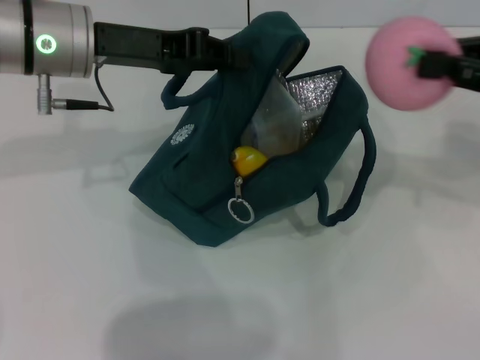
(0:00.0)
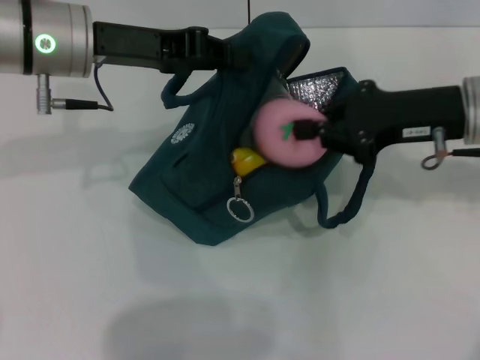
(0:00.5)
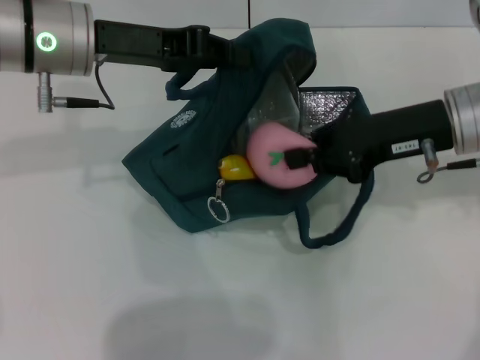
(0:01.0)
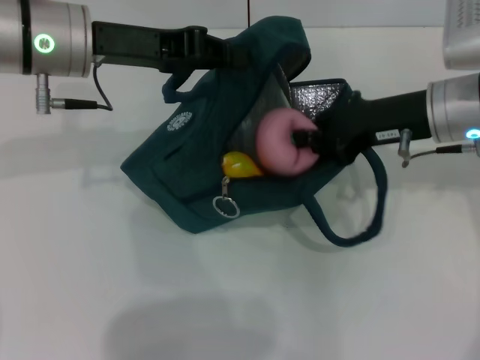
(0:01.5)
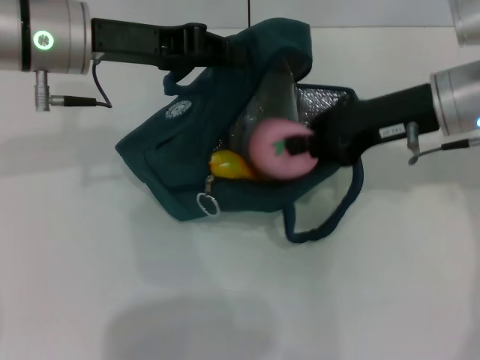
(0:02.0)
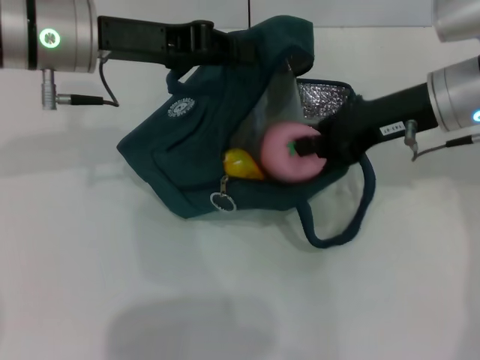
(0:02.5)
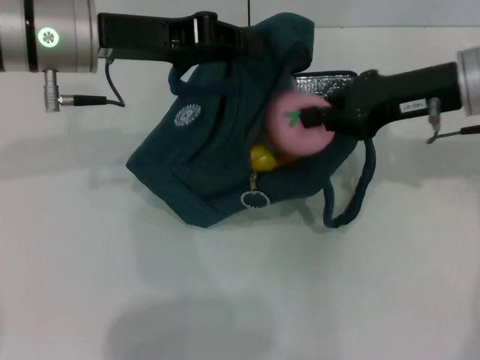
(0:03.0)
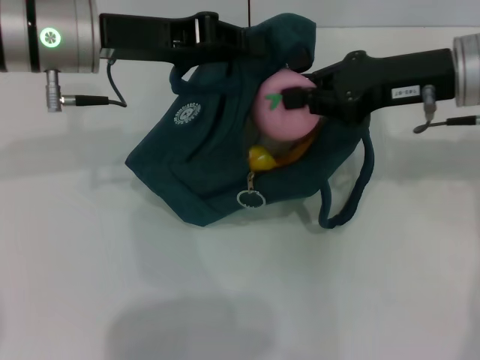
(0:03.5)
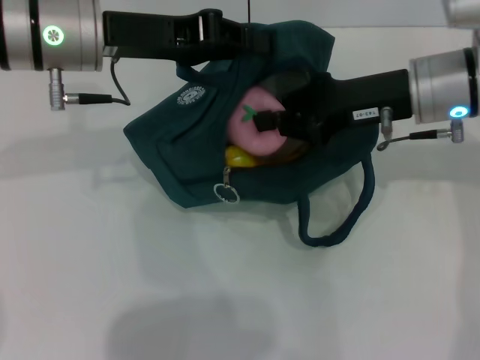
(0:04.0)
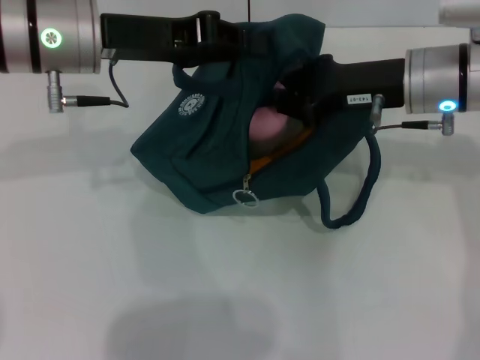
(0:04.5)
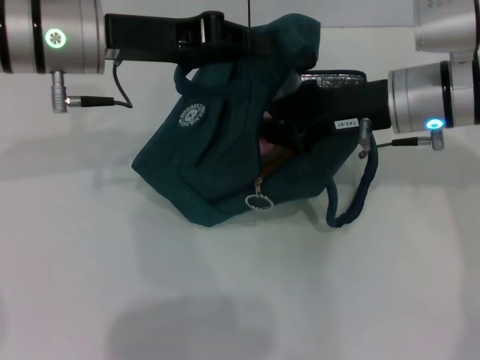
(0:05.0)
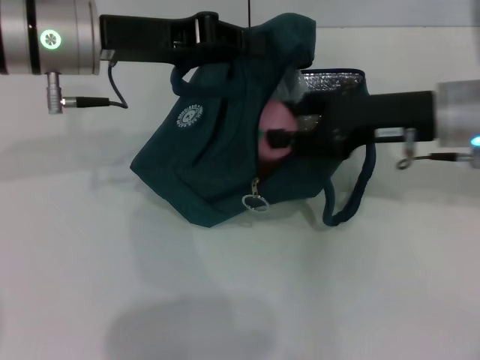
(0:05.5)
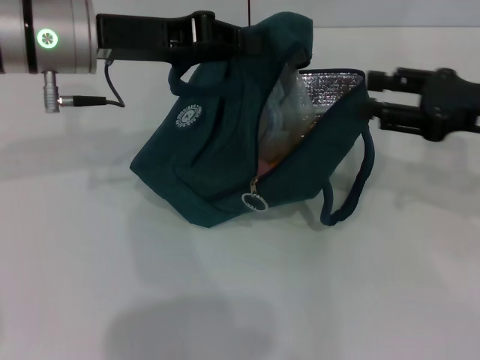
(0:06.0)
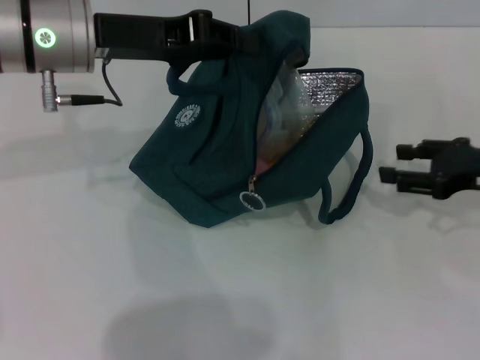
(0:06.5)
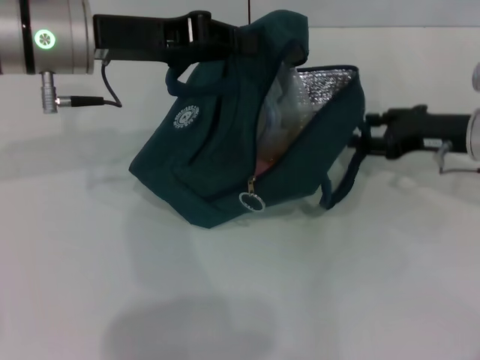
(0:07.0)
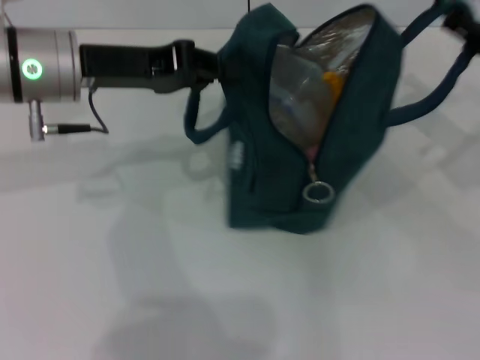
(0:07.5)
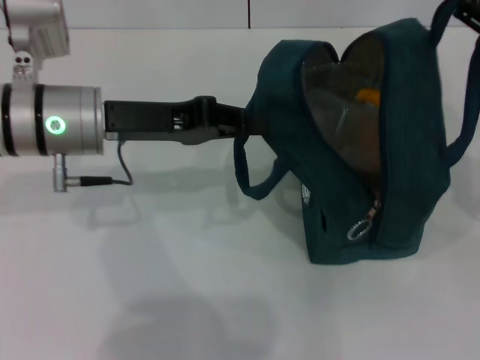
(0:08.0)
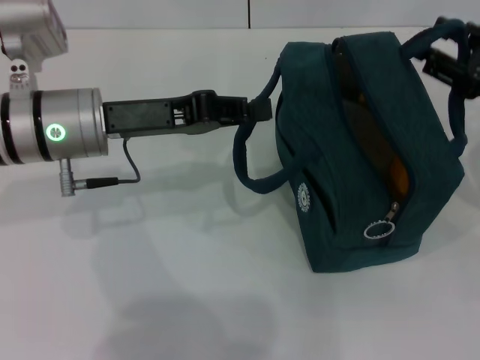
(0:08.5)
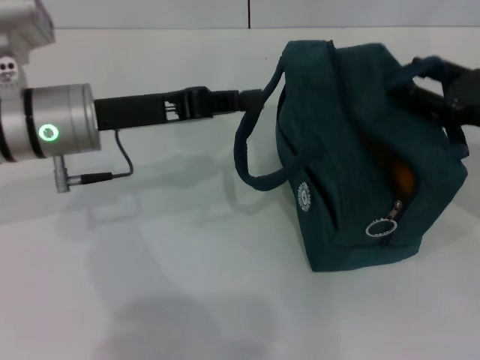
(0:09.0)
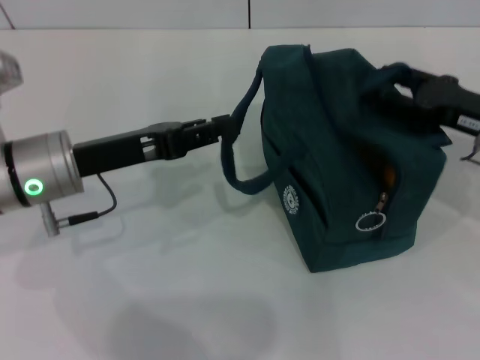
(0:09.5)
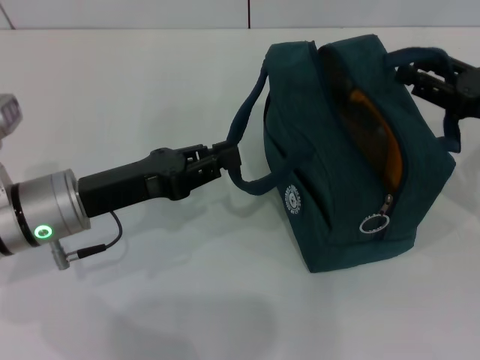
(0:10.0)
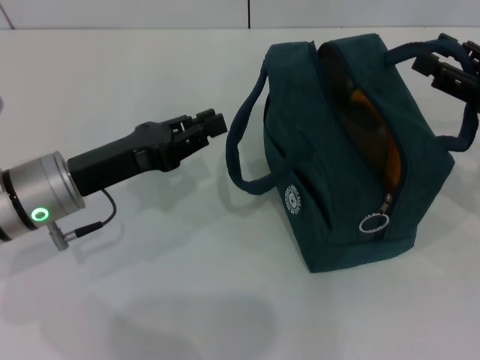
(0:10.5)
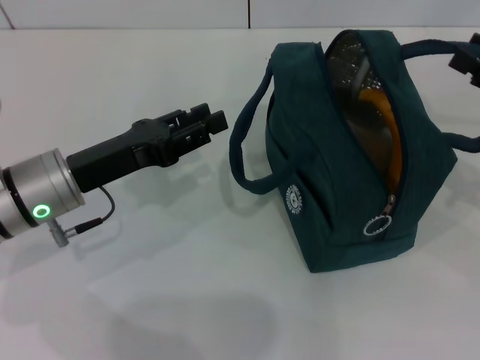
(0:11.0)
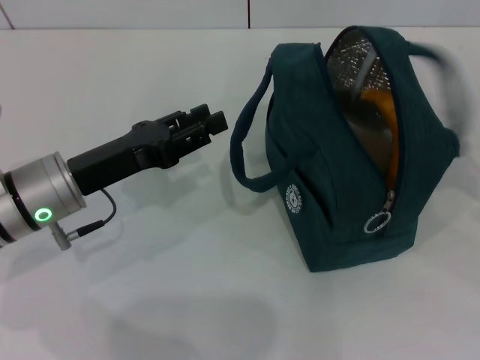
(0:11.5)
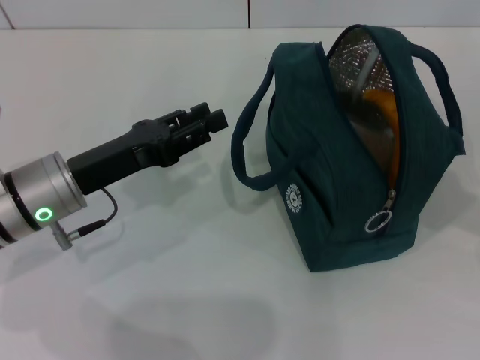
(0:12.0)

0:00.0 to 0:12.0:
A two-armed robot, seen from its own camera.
Step, 0:06.0 to 0:08.0: Hold the lunch bag with your left hand.
Step, 0:08.5 to 0:10.0: Hold the lunch bag with your right hand.
0:00.0 to 0:02.0: The right gripper shifts approximately 10 cm to the left.
0:04.0 to 0:06.0: The right gripper travels to the right by approximately 10 cm, and opens its fingers.
0:06.0 to 0:08.0: The left gripper heads downward, covering about 5 cm.
0:08.0 to 0:10.0: The left gripper heads downward and backward, covering approximately 10 cm, while the right gripper travels downward by some 5 cm.
0:10.0 to 0:12.0: The right gripper heads backward and to the right, covering about 10 cm.

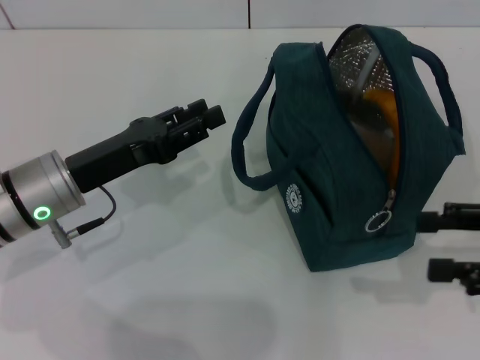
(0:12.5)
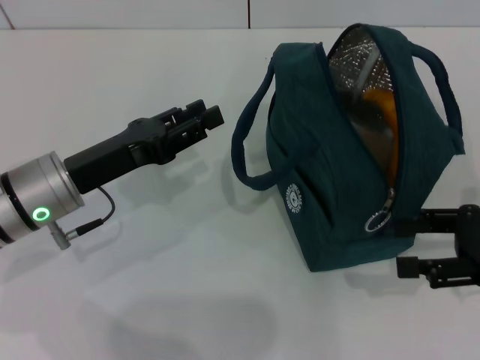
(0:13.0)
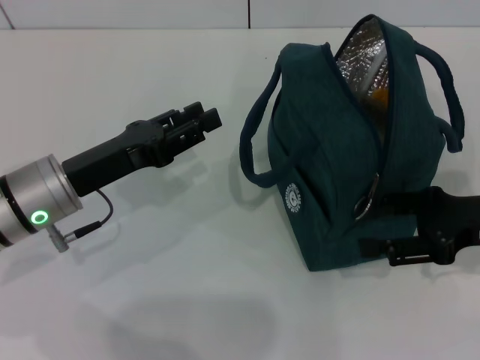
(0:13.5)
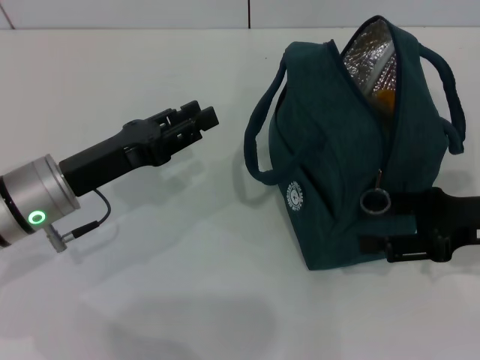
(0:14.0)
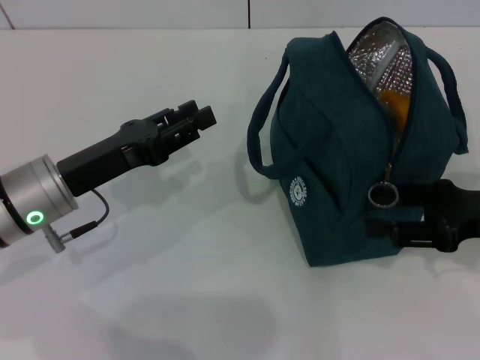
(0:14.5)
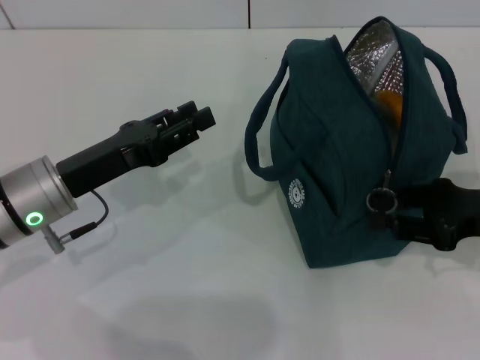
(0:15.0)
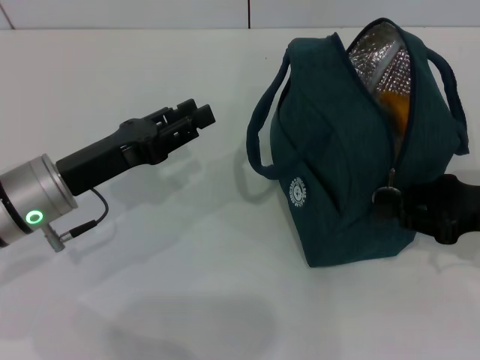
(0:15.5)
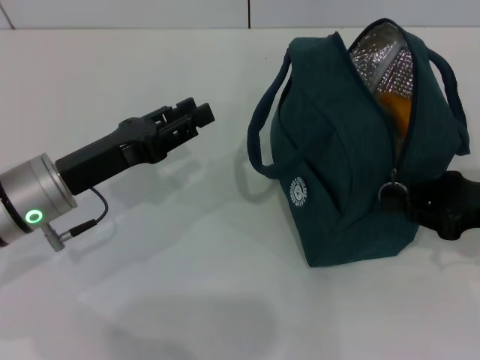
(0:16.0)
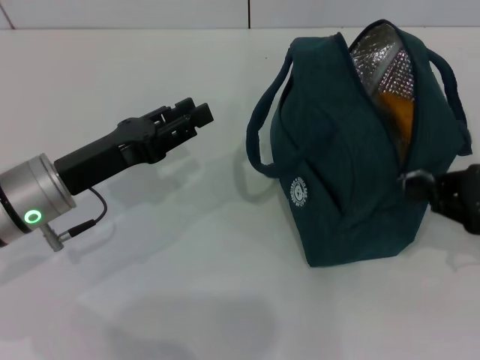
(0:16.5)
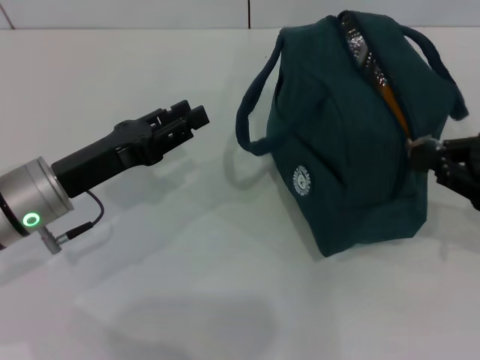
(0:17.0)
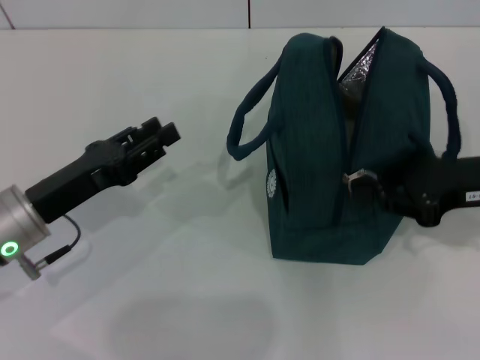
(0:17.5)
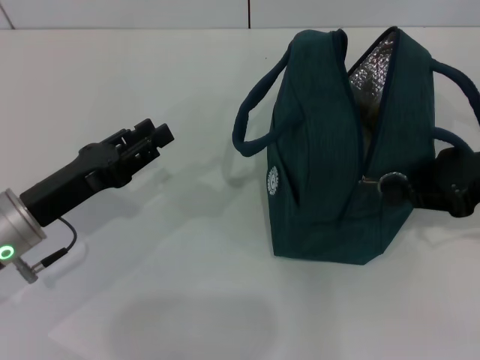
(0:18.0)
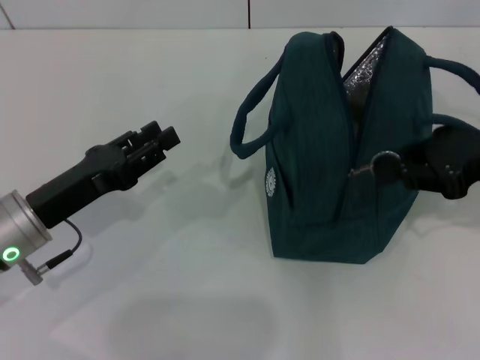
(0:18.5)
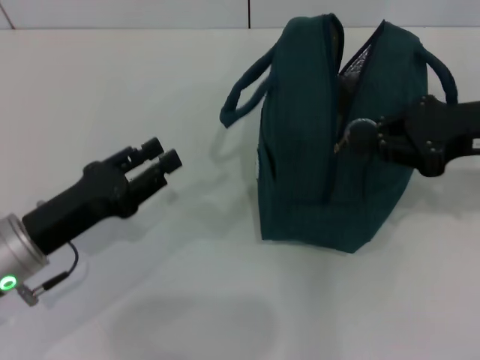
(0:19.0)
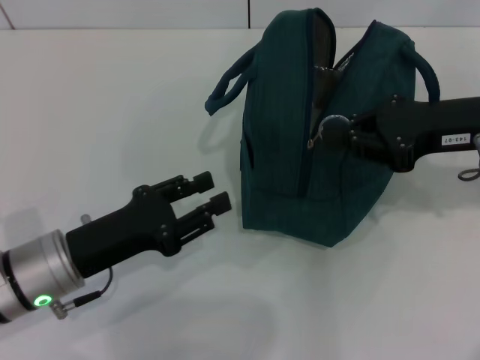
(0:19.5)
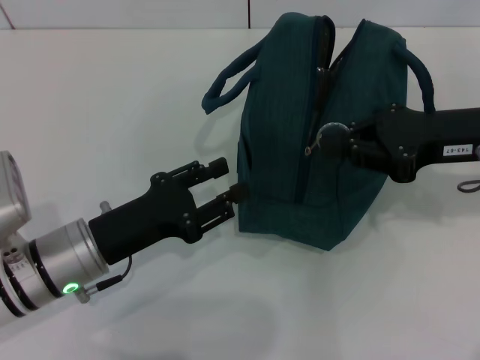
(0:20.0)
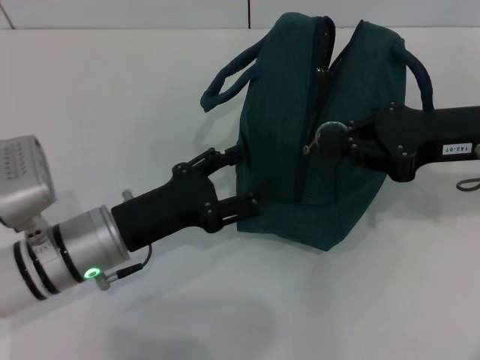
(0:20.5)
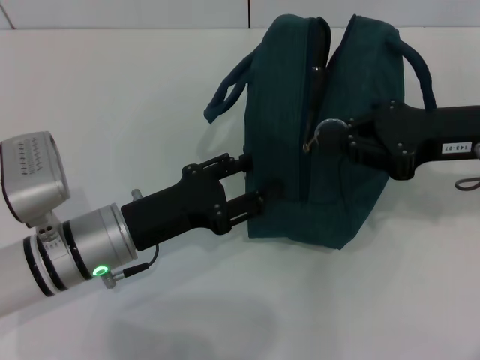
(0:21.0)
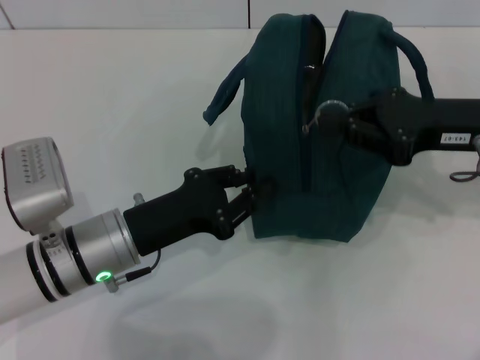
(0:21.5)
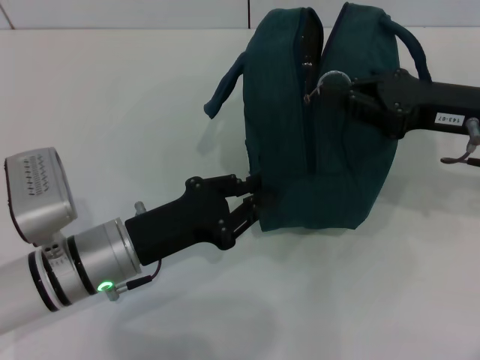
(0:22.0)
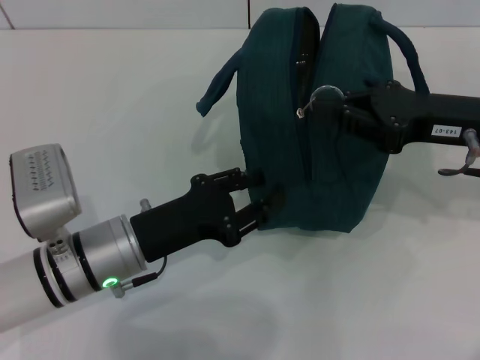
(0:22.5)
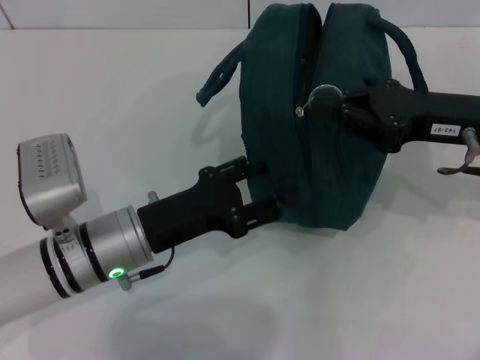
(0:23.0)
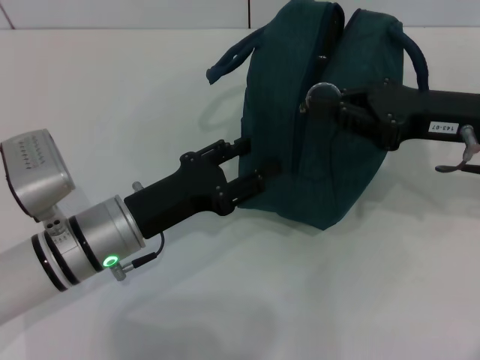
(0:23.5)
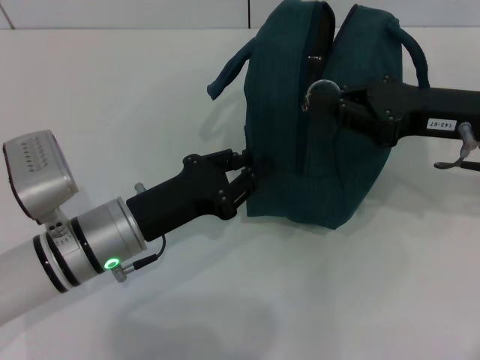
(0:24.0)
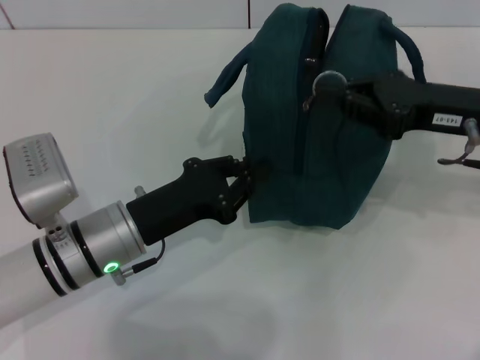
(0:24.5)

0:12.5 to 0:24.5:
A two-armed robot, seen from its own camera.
0:12.5 to 0:14.5: The right gripper changes place by about 5 cm.
0:14.5 to 0:16.5: The right gripper closes up.
0:16.5 to 0:18.5: The right gripper shifts approximately 5 cm upward.
0:18.5 to 0:20.5: The left gripper travels to the right by some 5 cm, and opens up.
0:20.5 to 0:22.5: The left gripper closes its fingers.
0:22.5 to 0:24.5: The left gripper opens and closes again.

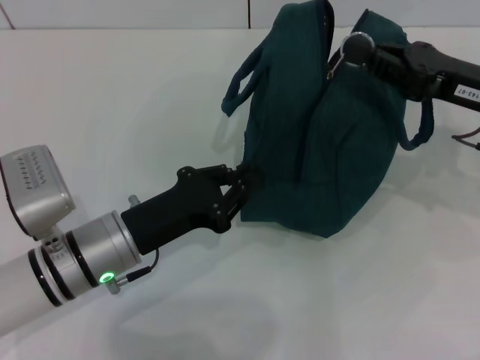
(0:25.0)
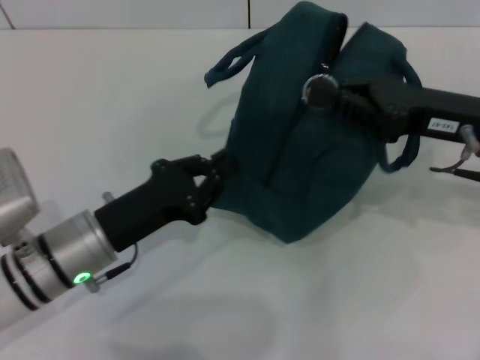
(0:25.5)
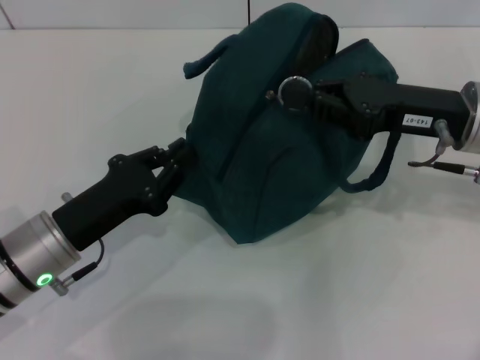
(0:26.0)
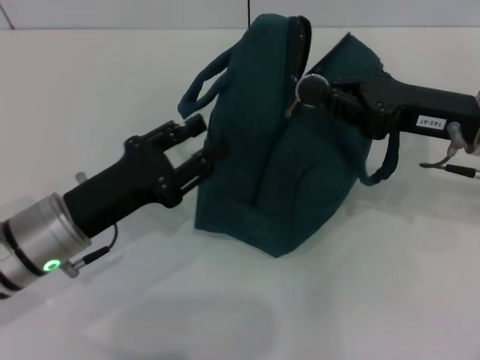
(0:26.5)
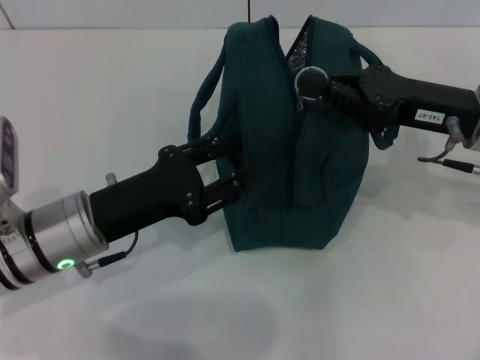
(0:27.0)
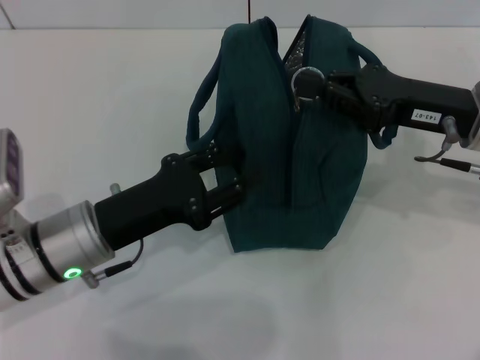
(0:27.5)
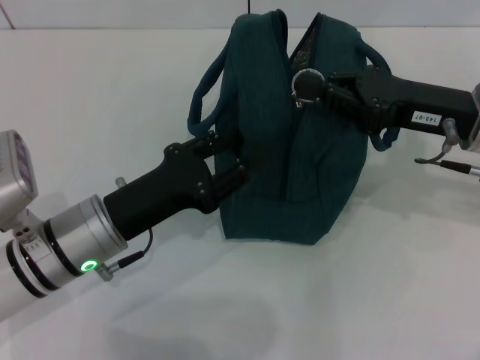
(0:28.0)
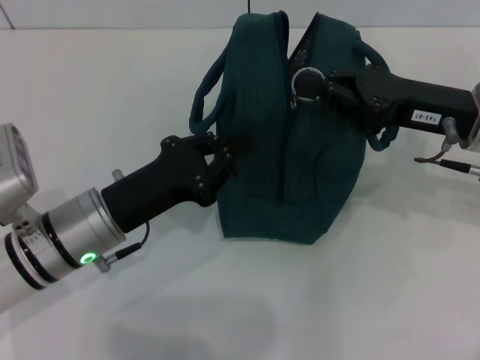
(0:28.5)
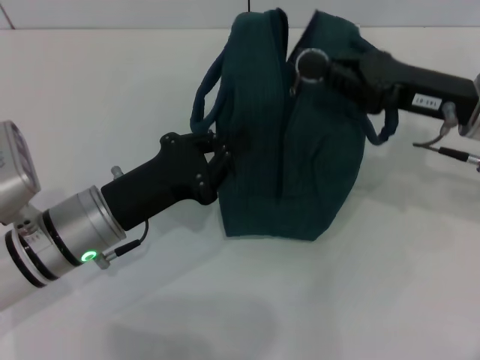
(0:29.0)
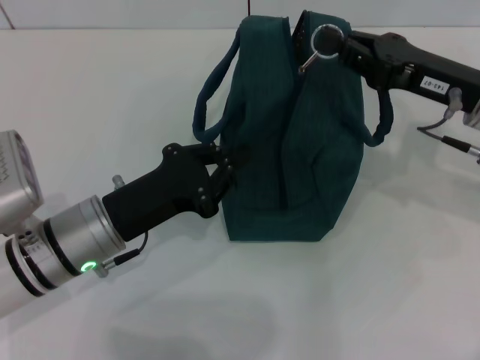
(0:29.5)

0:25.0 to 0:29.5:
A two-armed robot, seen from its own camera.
0:25.0 to 0:27.0: The left gripper opens.
0:27.0 to 0:29.5: The left gripper closes.
